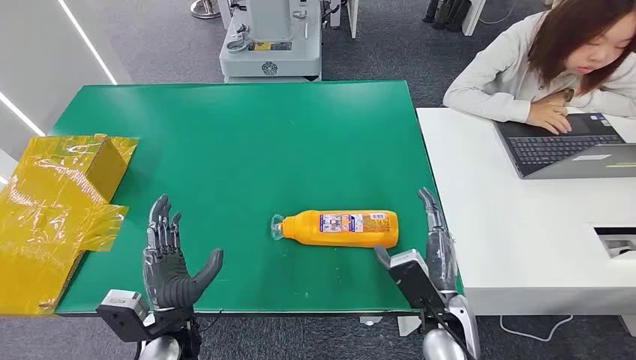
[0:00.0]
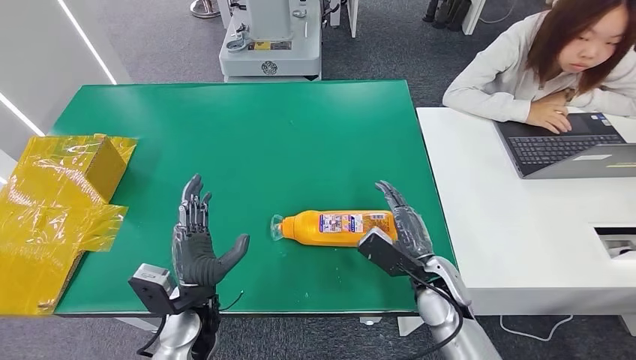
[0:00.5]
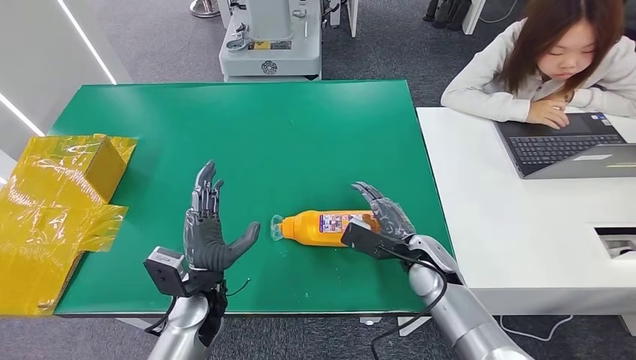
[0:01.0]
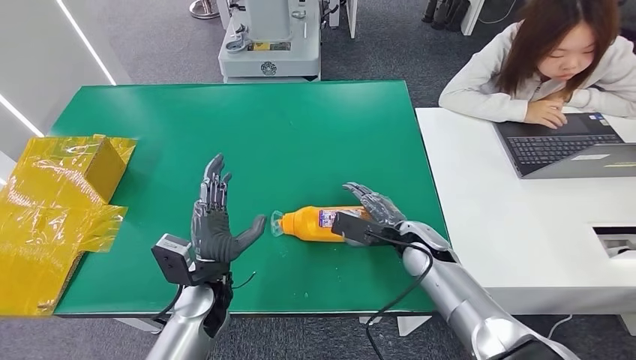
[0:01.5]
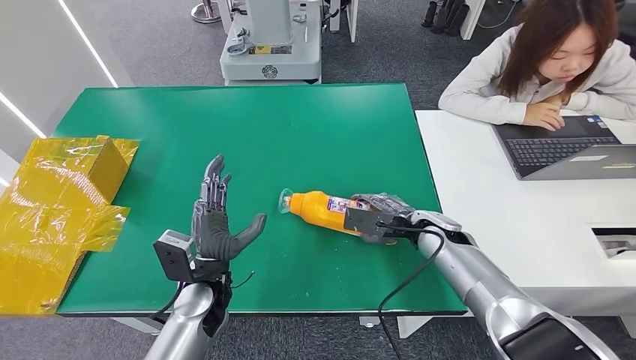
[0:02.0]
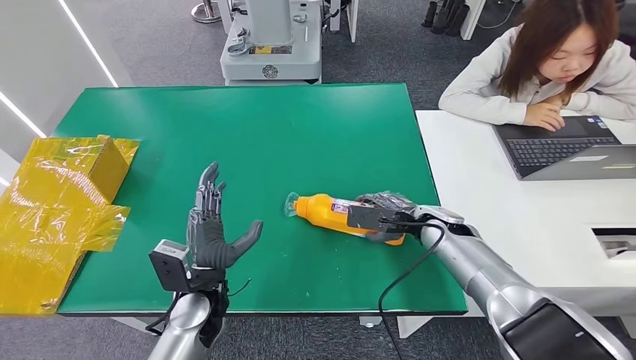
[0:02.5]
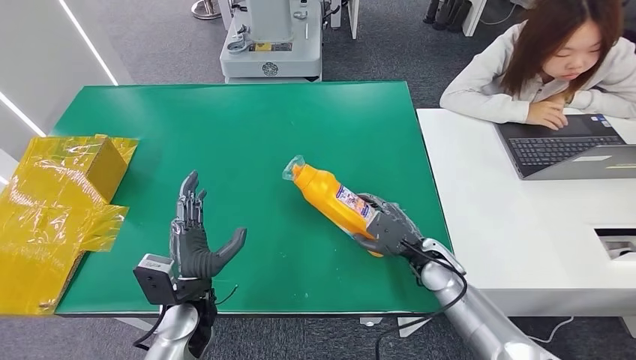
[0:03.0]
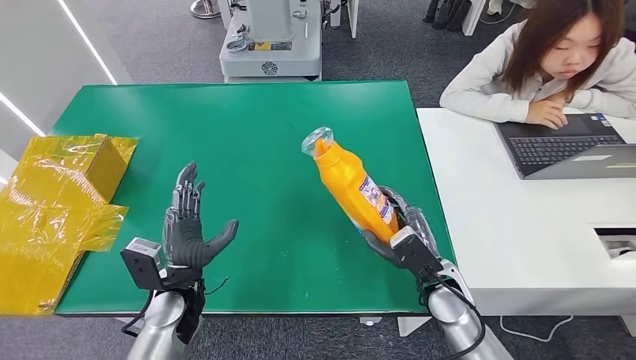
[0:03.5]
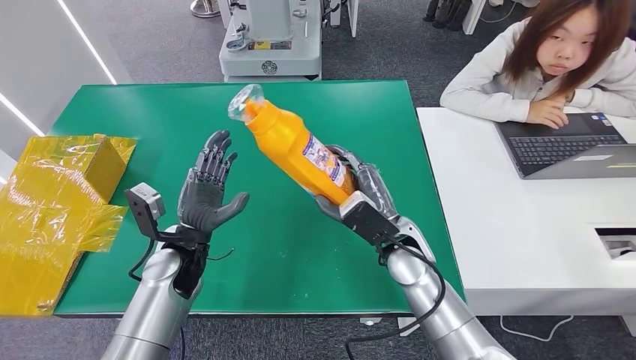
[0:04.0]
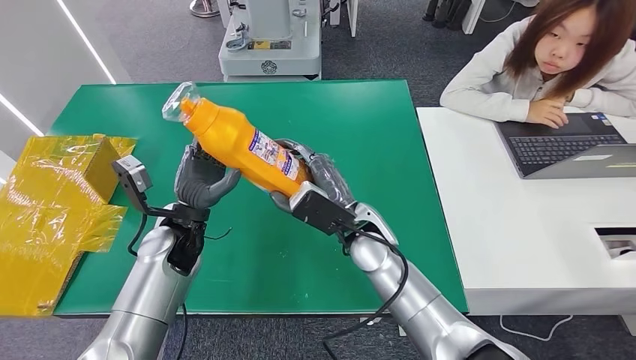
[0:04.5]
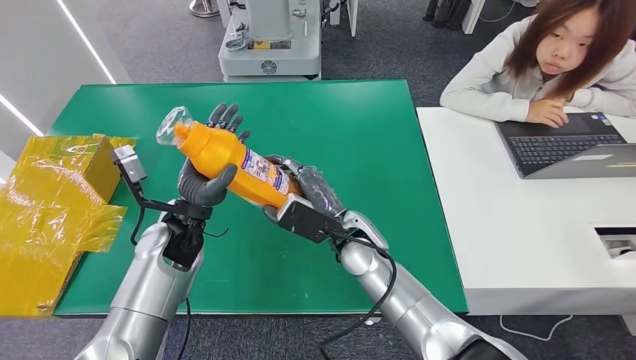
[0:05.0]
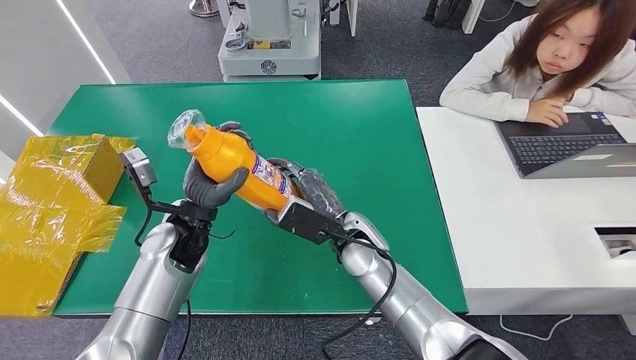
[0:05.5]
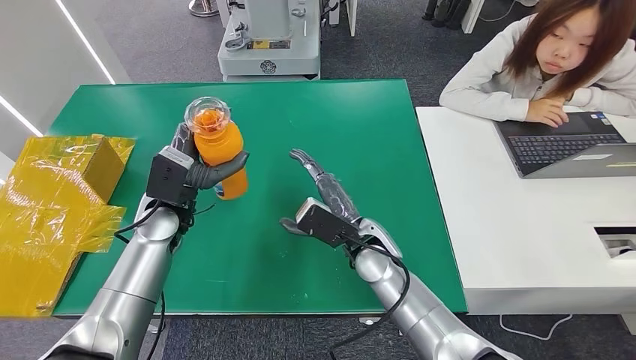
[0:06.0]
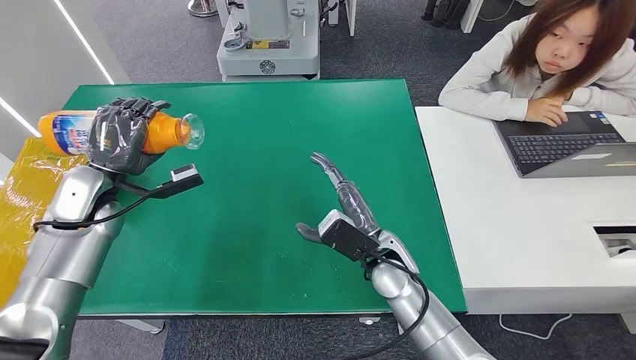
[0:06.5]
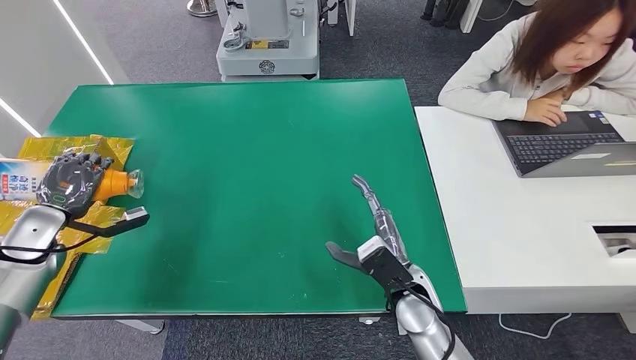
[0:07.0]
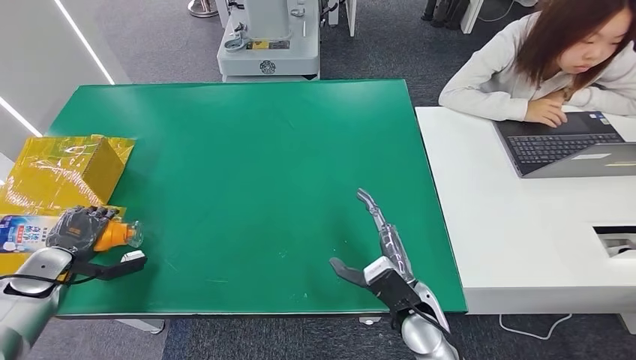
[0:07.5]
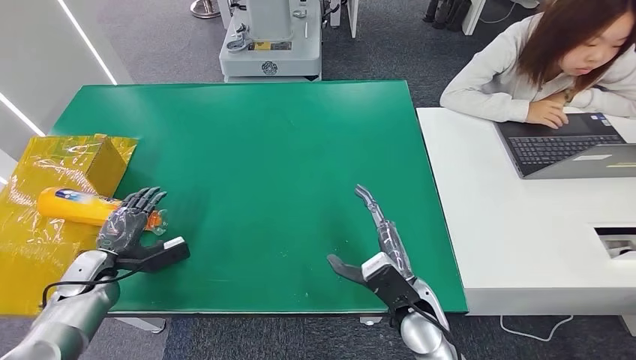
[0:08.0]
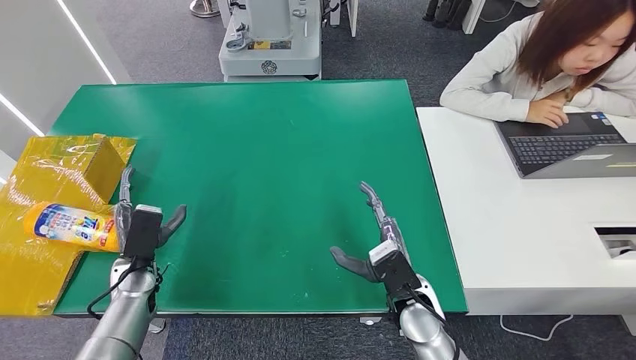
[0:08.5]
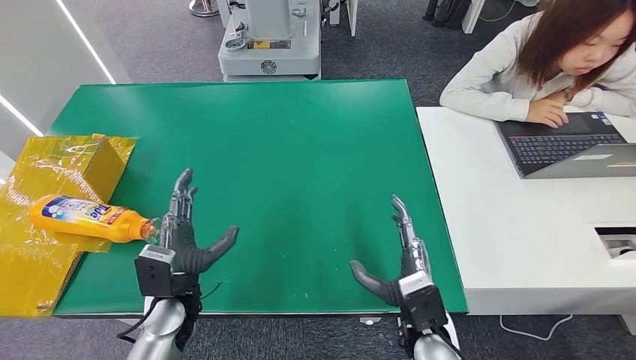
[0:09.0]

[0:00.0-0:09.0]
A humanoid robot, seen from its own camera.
Step, 0:00.0 to 0:05.5: Pick up the bottle from the table.
Step, 0:06.0 to 0:09.0: Turn the bottle to the front side.
0:07.0 to 0:09.0: The right hand travels backward by roughly 5 cm. The left hand travels to the right by approximately 30 cm.

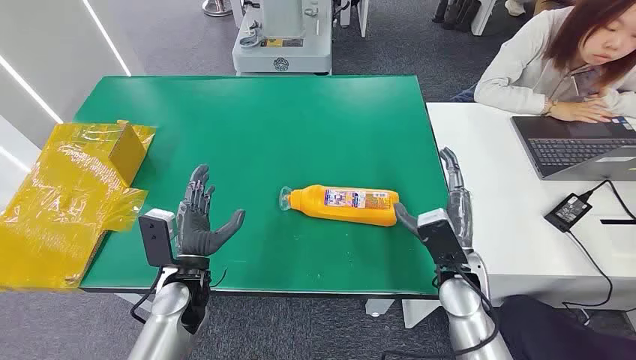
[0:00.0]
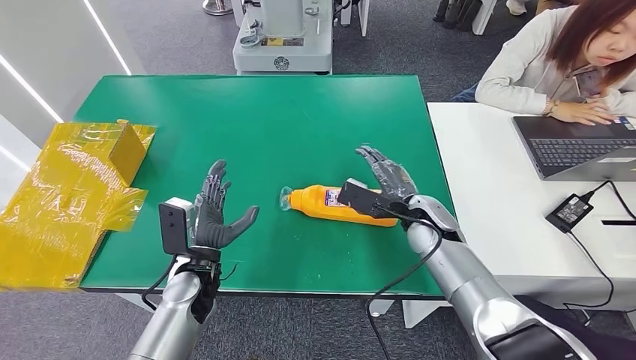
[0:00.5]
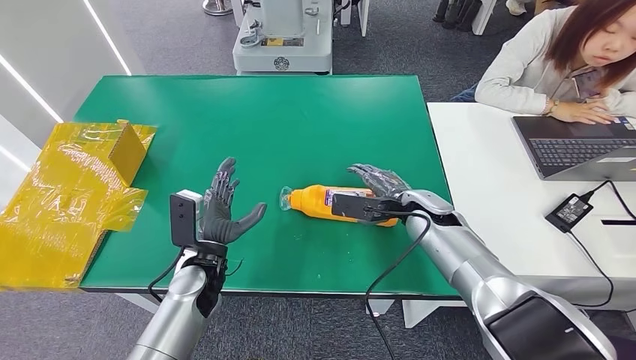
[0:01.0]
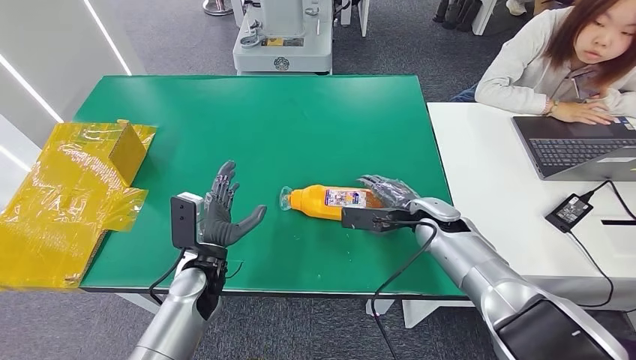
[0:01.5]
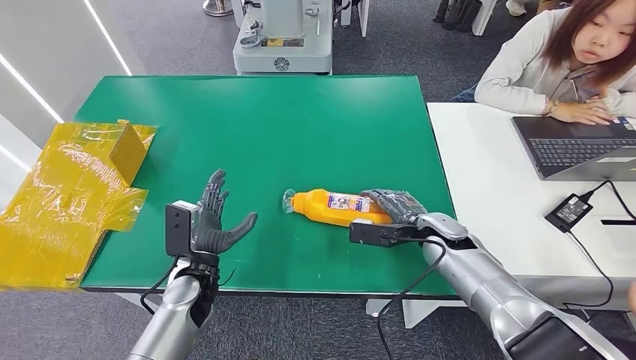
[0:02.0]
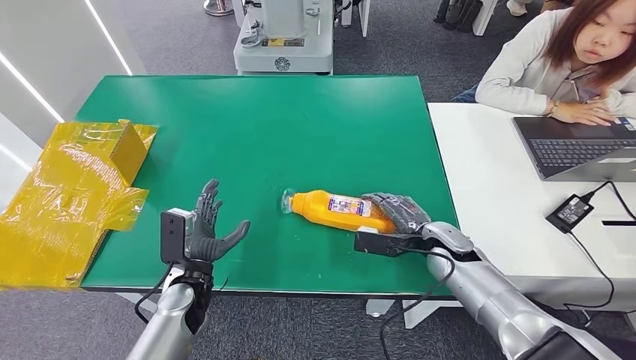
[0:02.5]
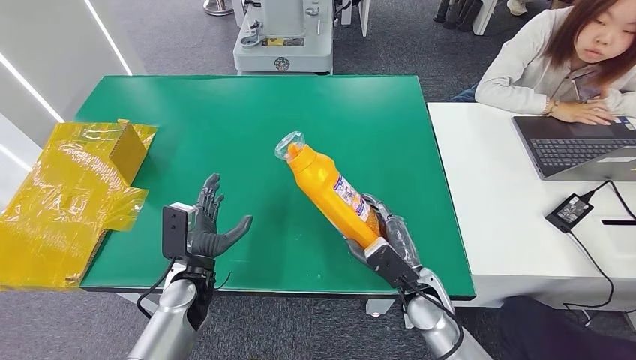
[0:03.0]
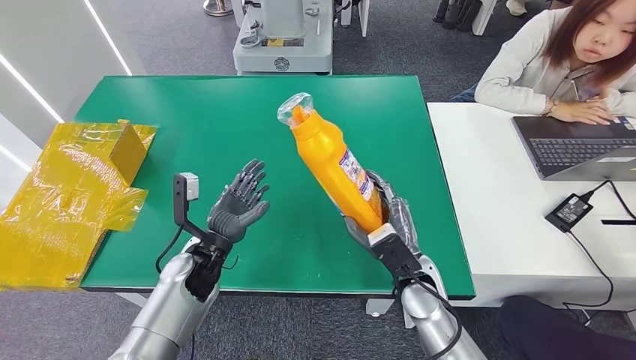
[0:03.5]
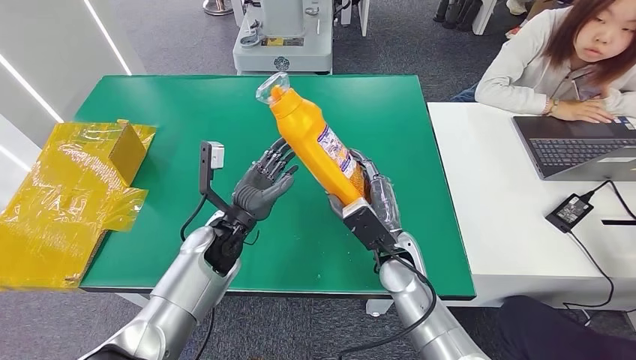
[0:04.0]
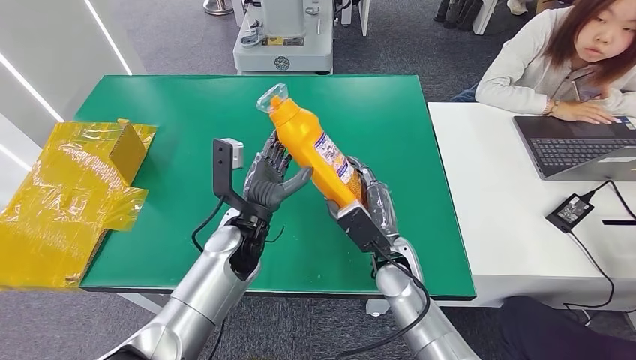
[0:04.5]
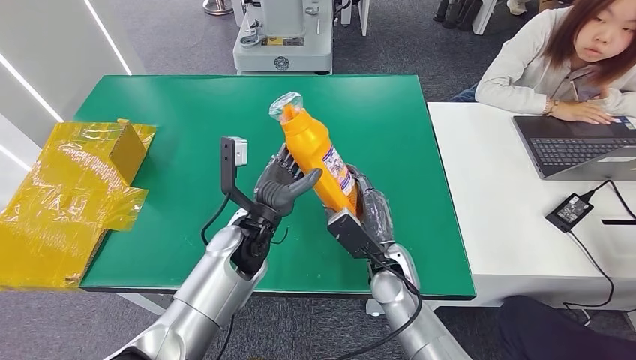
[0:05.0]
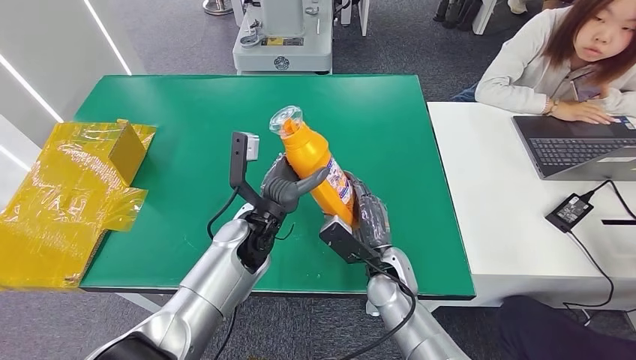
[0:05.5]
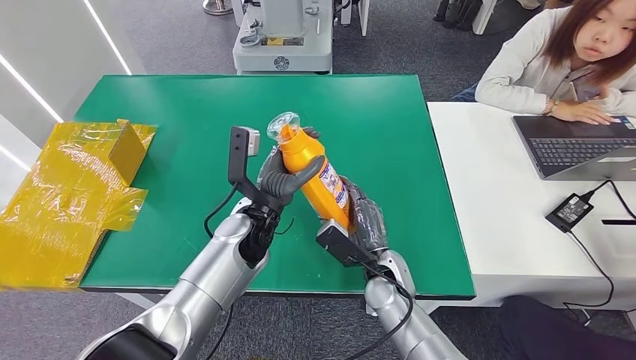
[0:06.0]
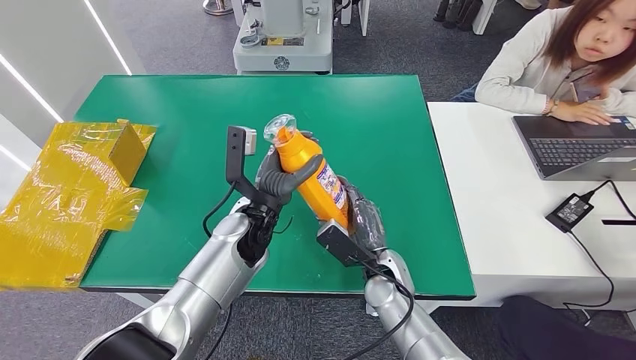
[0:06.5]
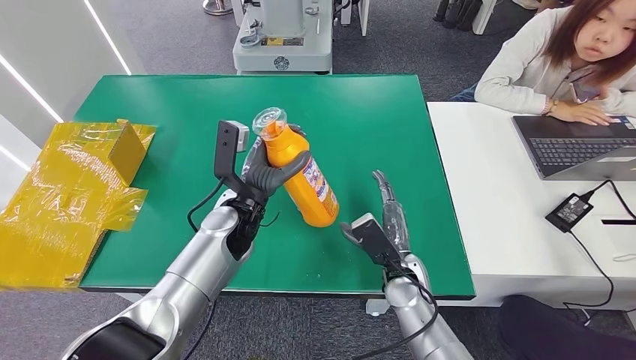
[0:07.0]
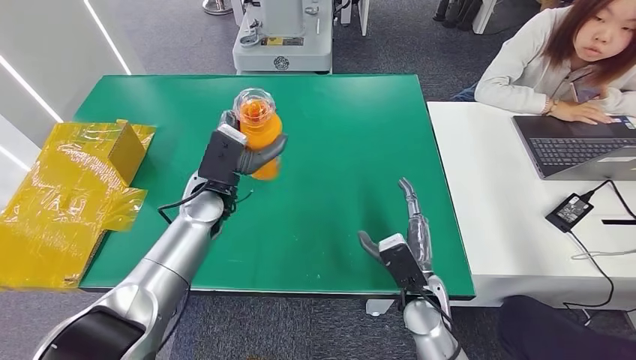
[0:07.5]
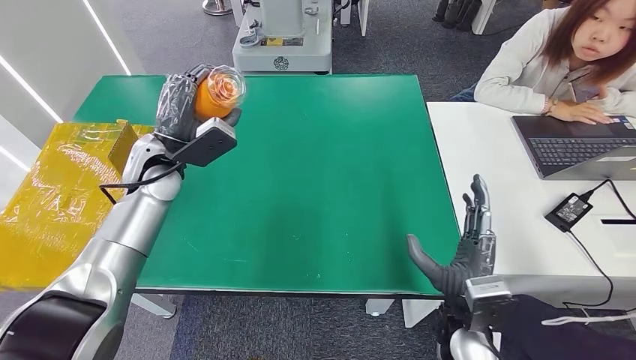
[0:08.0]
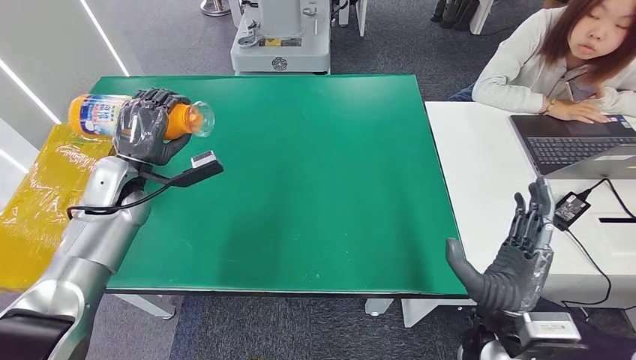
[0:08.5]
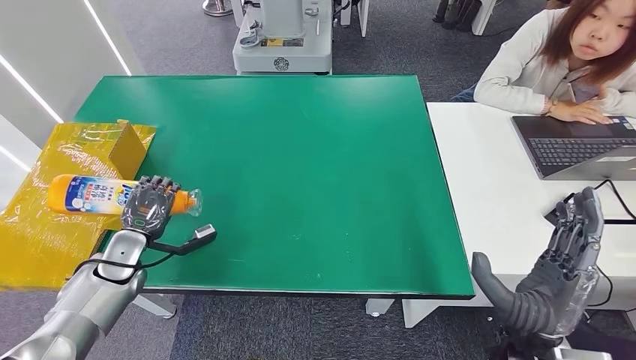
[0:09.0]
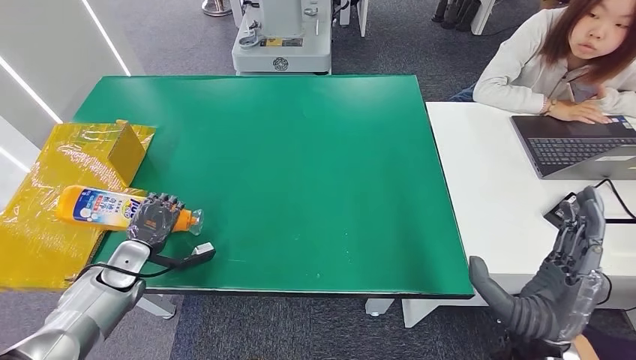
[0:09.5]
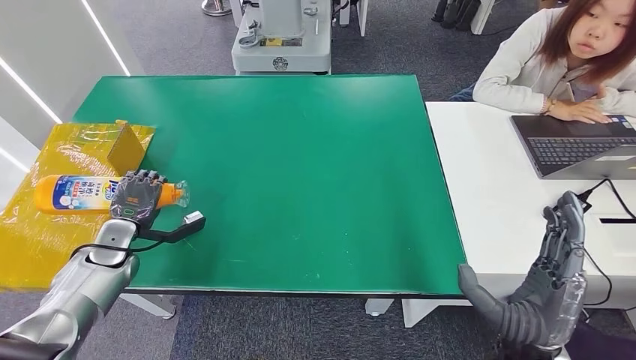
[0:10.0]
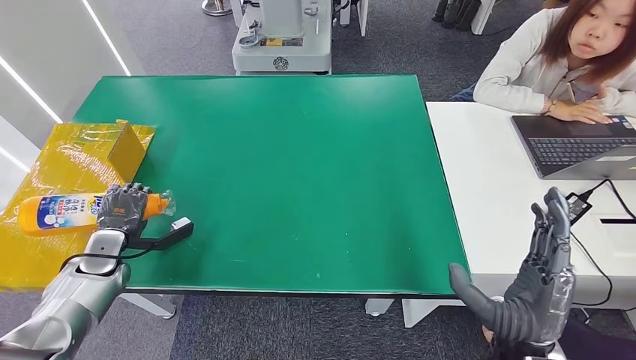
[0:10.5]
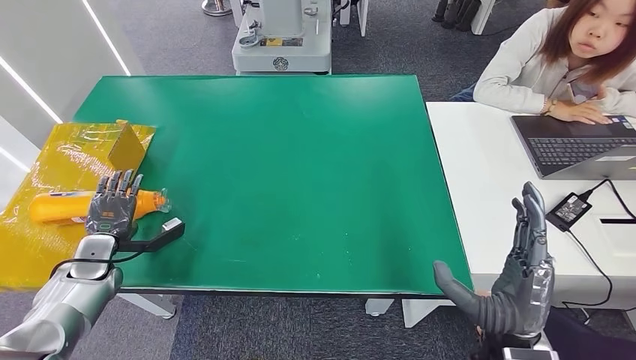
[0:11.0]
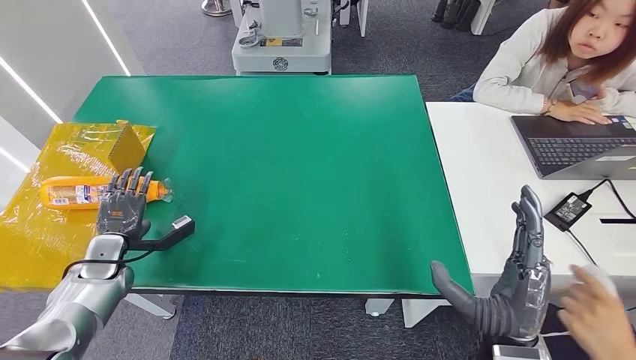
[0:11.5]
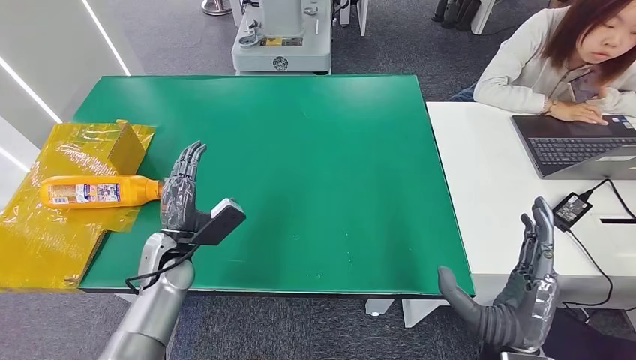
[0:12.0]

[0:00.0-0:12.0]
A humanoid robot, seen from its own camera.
Step, 0:00.0 to 0:04.0: Pick up the bottle from the table.
Step, 0:05.0 to 0:12.0: Turn the bottle to the front side.
0:02.0 to 0:04.0: The left hand travels upward and forward by roughly 10 cm. Meanwhile the right hand travels to the left and backward by approximately 15 cm.
0:04.0 to 0:06.0: The left hand travels to the right by roughly 5 cm.
0:10.0 to 0:12.0: The left hand is displaced to the right by roughly 15 cm.
